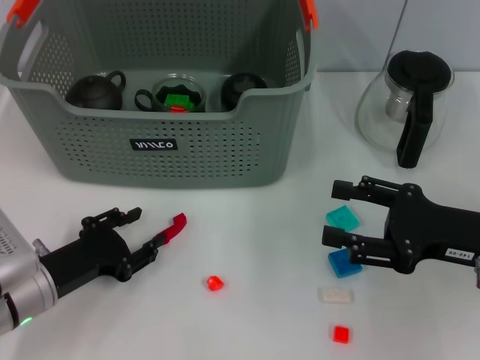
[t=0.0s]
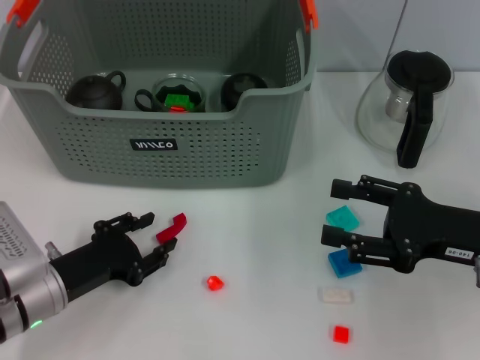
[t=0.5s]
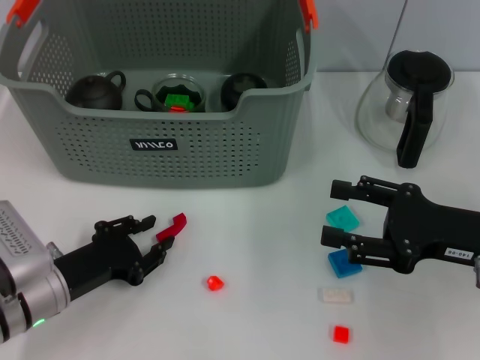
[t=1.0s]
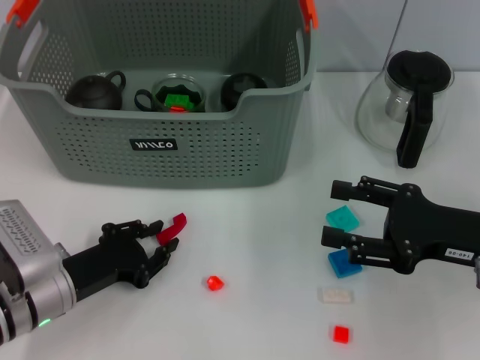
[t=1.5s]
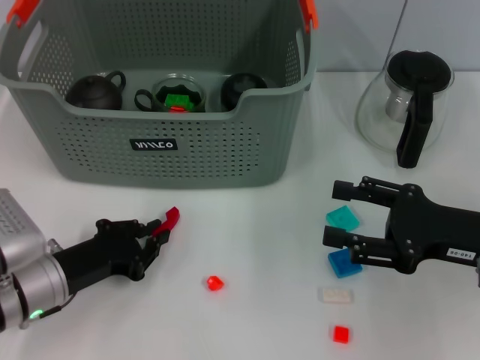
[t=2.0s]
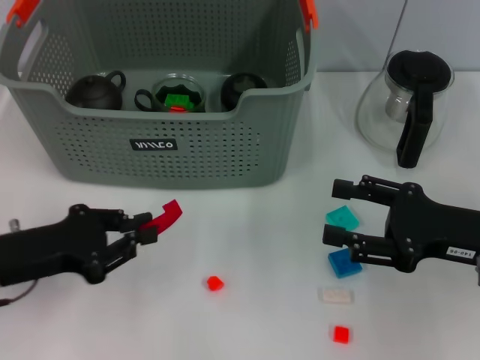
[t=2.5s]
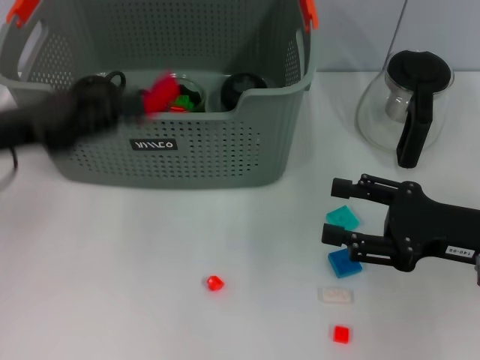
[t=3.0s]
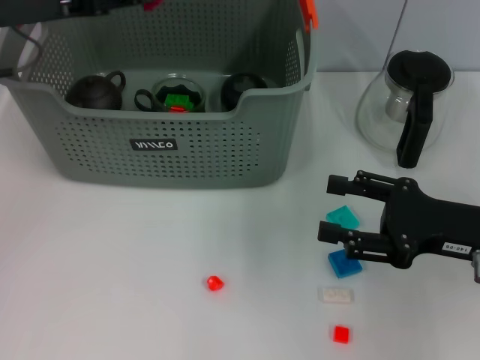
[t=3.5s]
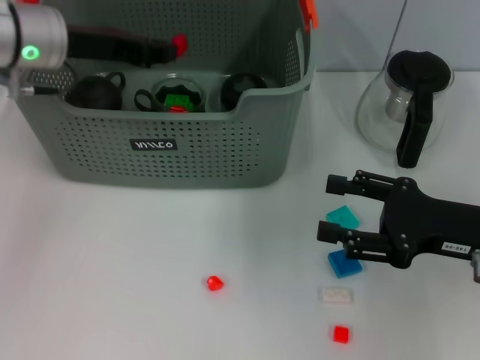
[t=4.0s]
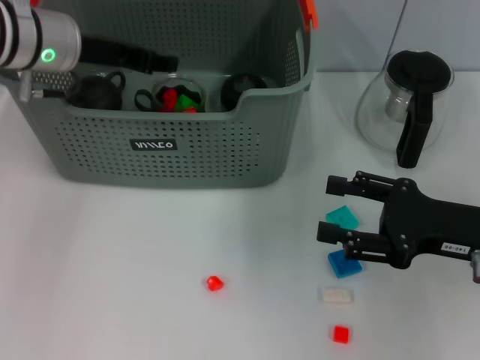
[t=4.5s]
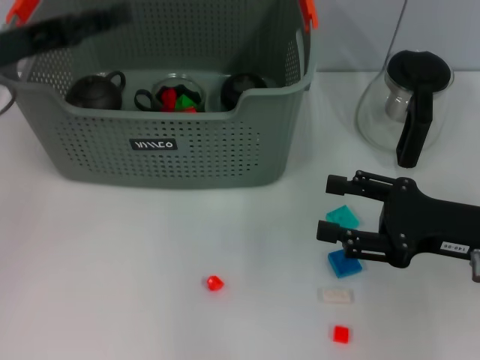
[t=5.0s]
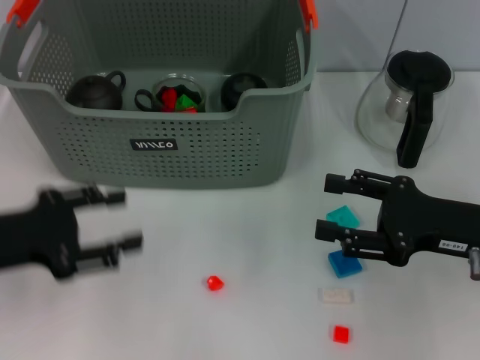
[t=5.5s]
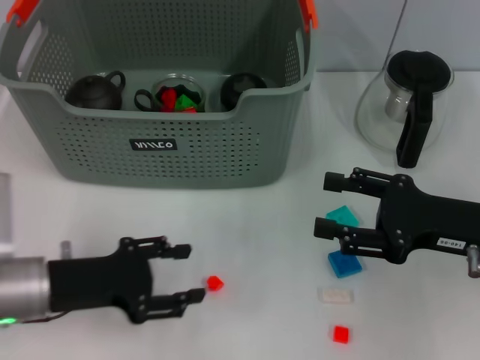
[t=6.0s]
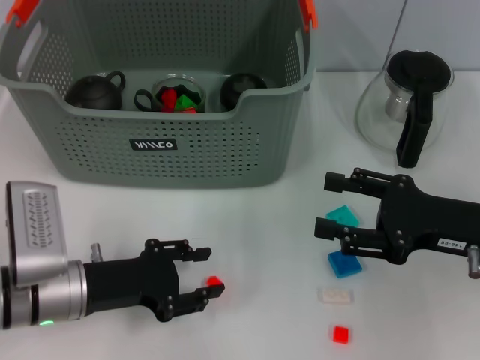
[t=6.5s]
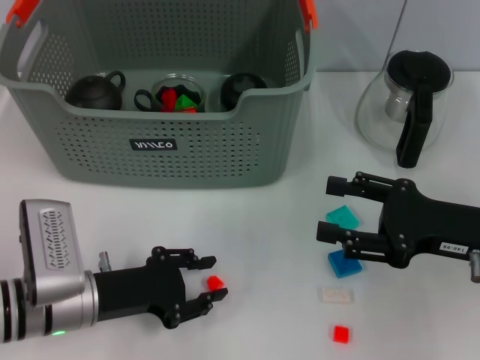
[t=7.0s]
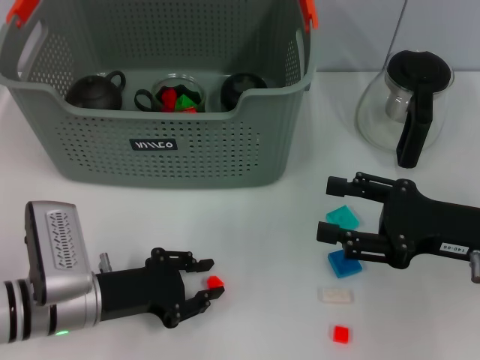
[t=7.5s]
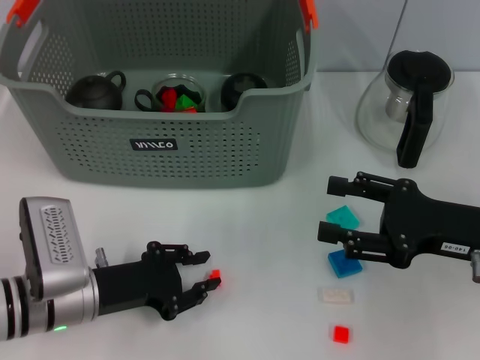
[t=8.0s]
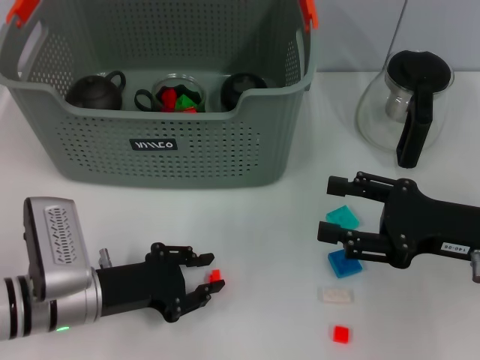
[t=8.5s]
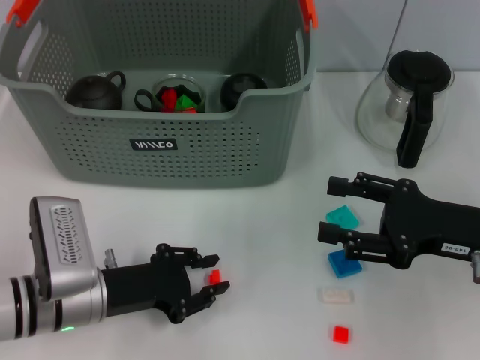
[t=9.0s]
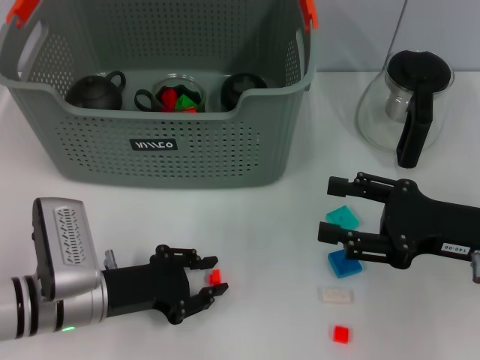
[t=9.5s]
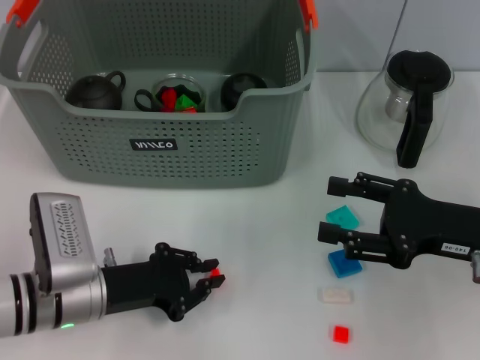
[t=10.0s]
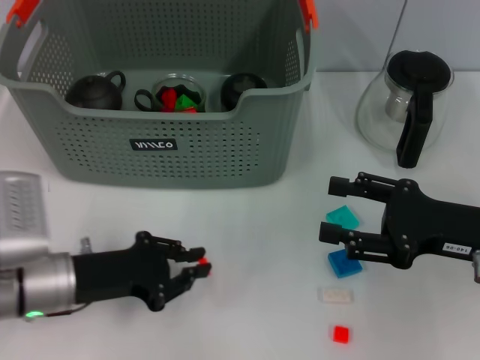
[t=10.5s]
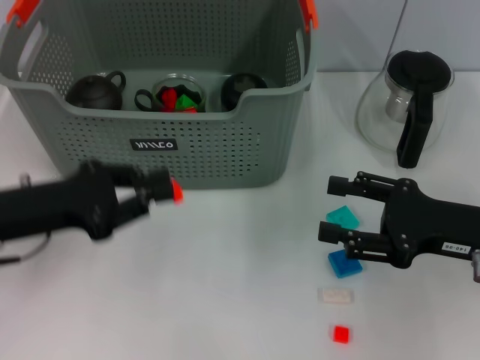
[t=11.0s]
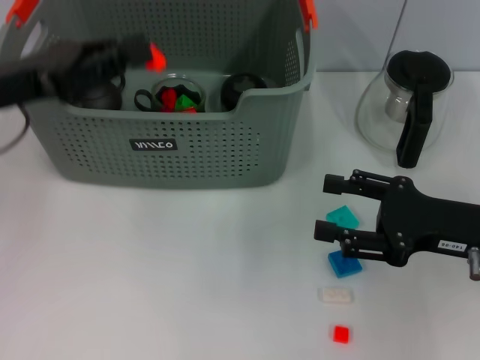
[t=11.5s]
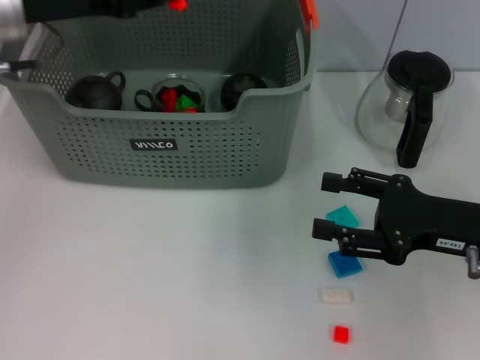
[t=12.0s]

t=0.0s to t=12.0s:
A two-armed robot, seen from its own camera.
Task of the whole recording: pick up the teacup on the table and place it into the storage bin, pick up the block on the table and place it into the storage bin.
Step, t=2.0s to t=4.5s: Place the red block in the storage box with left gripper.
Step, t=5.0s to t=9.5s: Grasp the orange block with left gripper.
t=0.0s to t=2.0s: The left gripper closes.
t=2.0s to t=4.0s: The left gripper goes roughly 25 cm upward and forward.
t=4.0s to t=6.0s: The left gripper shifts some 20 cm backward and downward, and opens its fingers.
t=6.0s to t=8.0s: The left gripper shifts by about 5 cm, and closes.
t=8.0s to t=10.0s: Neither gripper changes place.
t=10.0s to t=12.0s: The left gripper moves upward and forward, roughly 25 cm.

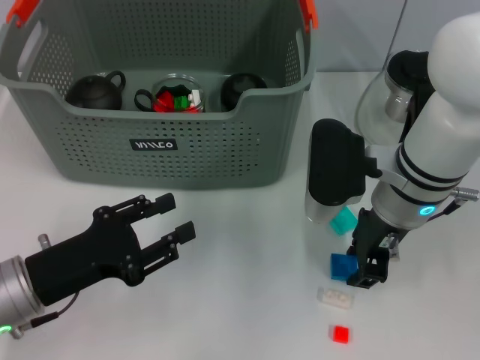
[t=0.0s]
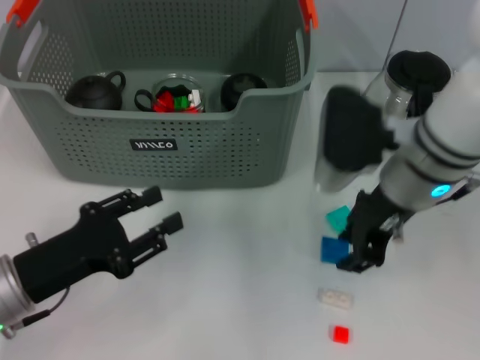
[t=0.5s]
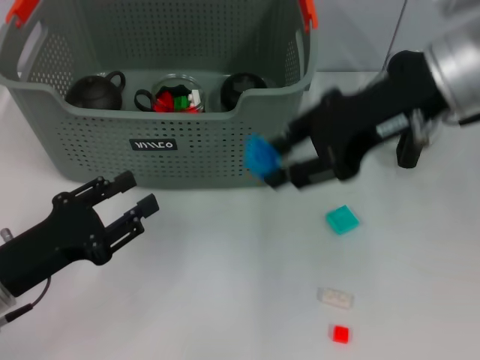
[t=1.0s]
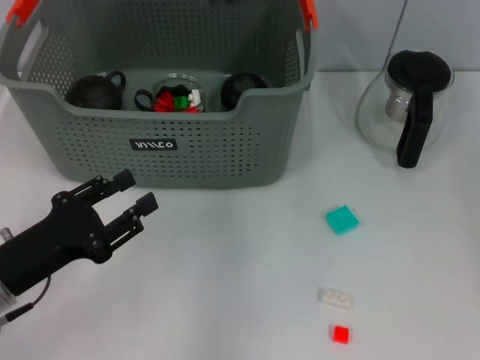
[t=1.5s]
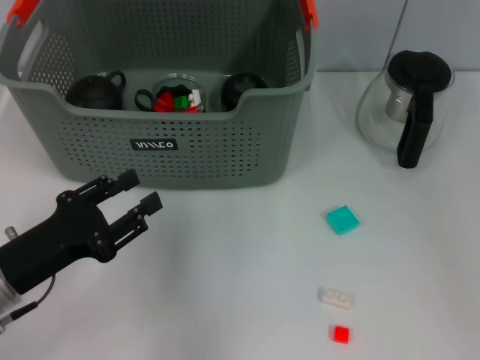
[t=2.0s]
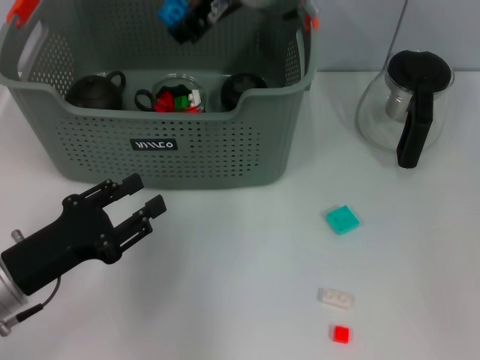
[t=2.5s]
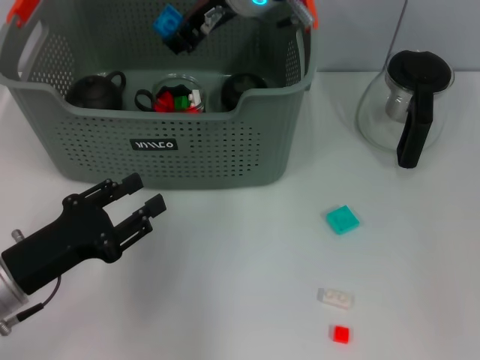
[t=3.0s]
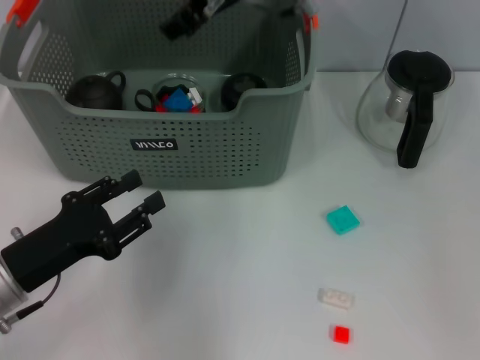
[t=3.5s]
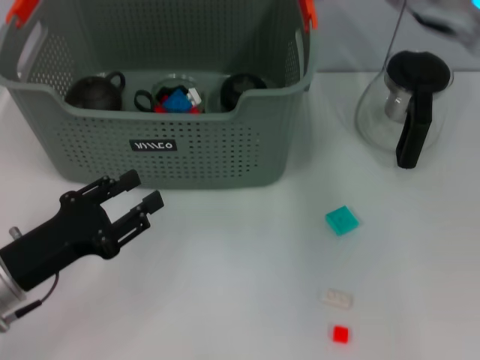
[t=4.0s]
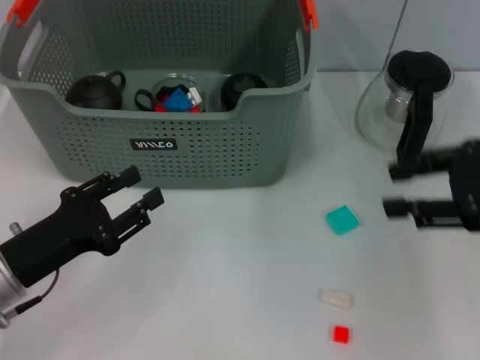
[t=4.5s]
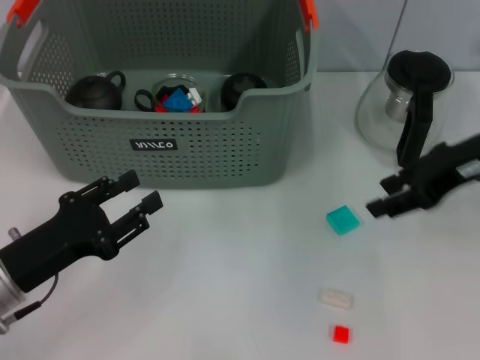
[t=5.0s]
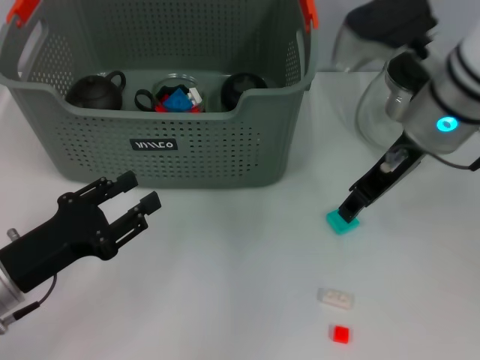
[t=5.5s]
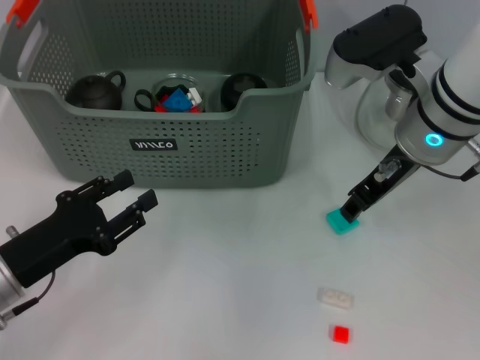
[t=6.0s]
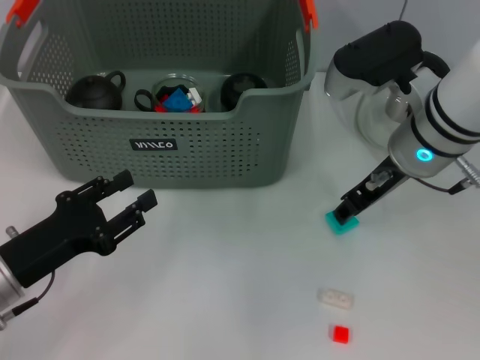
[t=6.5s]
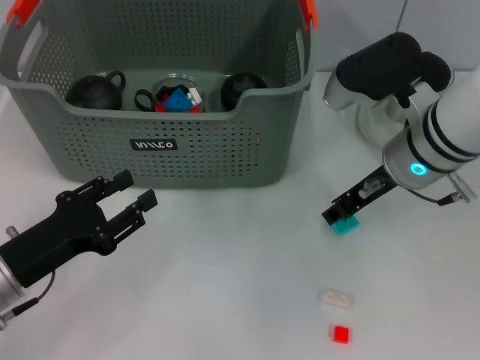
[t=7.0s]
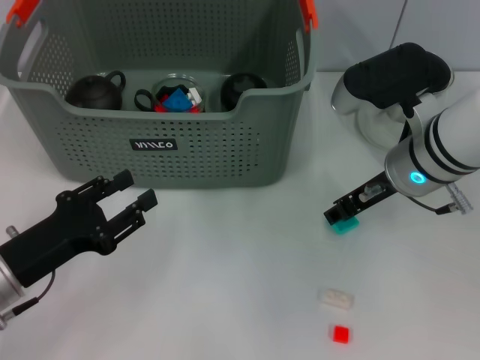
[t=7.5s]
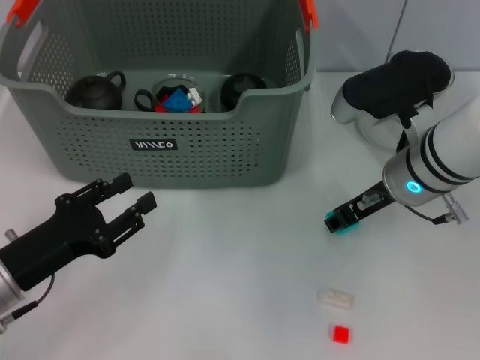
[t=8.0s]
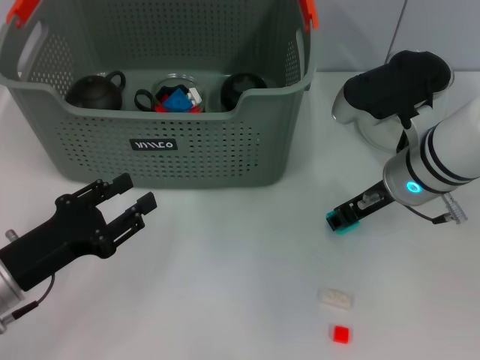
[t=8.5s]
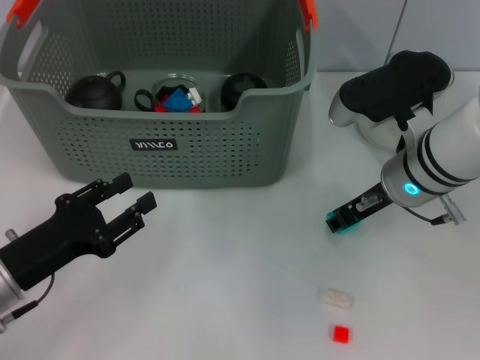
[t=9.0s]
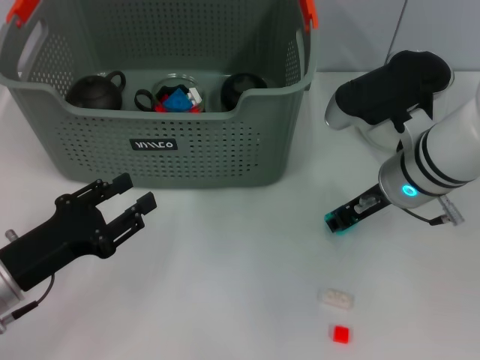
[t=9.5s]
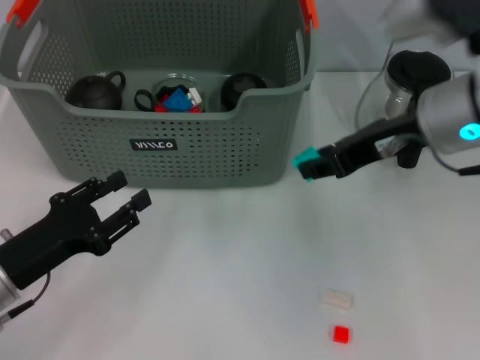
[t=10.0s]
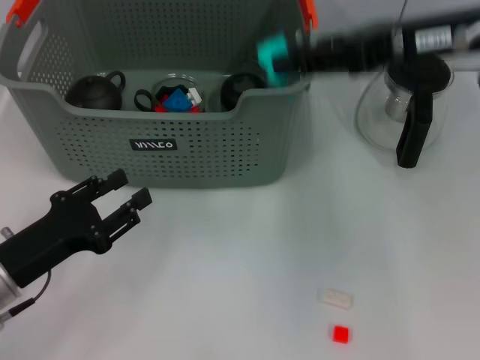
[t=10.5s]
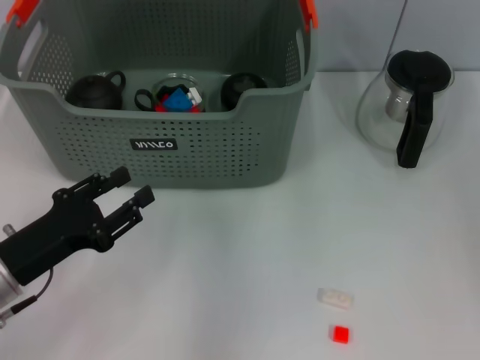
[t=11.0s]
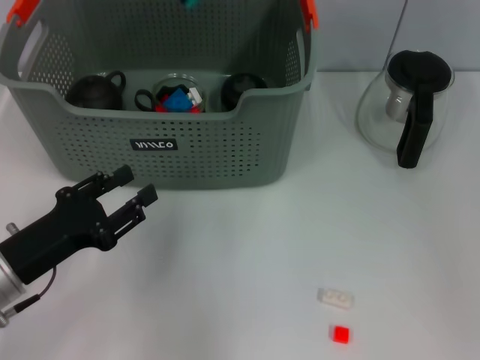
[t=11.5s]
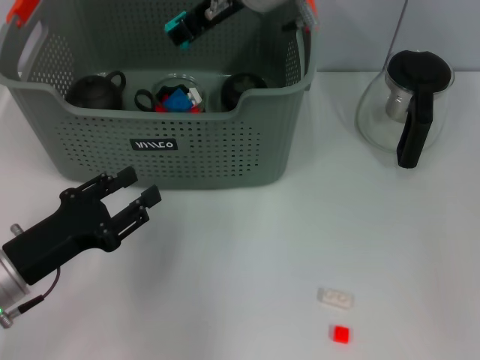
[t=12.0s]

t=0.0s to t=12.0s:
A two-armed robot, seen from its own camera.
Task of the whole recording: pick up the teacup on the table and place it into the storage bin, pick up the block on the table and place it into the storage bin.
Step, t=0.5s to t=3.5s: Place the dark blue block in the storage box with right gripper.
Step, t=4.0s to t=9.0s: Grasp the light blue block with right gripper.
t=0.0s to t=2.0s: The right gripper travels upward, forward and to the left by some 20 cm.
t=2.0s to t=4.0s: The right gripper moves to the right and backward, some 15 cm.
t=4.0s to t=6.0s: The right gripper goes about 10 cm downward, and reaches some 10 cm to the right, then returns.
t=6.0s to t=8.0s: The right gripper is displaced downward by about 5 cm.
t=8.0s to t=10.0s: The right gripper goes approximately 10 cm upward.
t=10.0s to t=12.0s: The right gripper shifts approximately 20 cm to the left and forward.

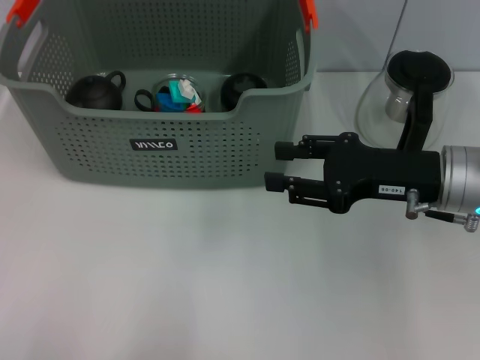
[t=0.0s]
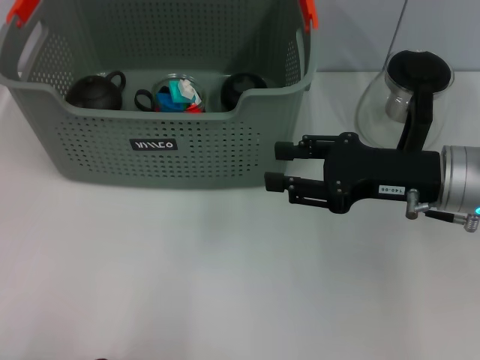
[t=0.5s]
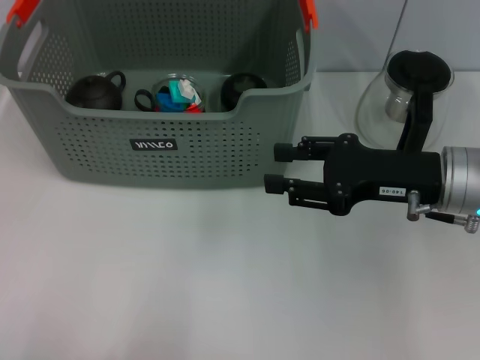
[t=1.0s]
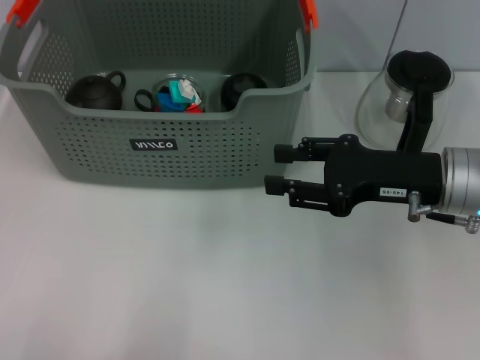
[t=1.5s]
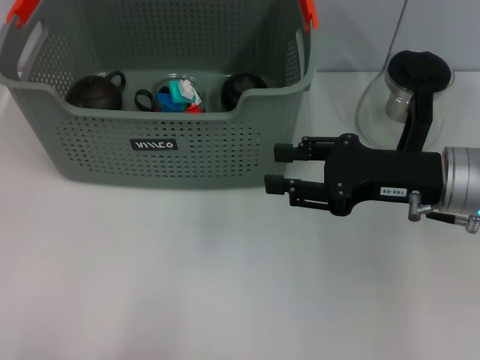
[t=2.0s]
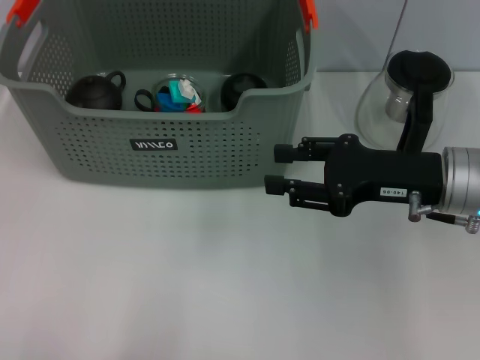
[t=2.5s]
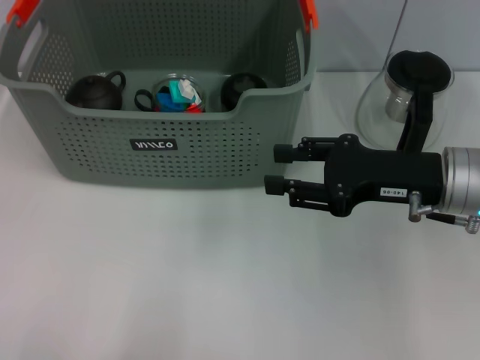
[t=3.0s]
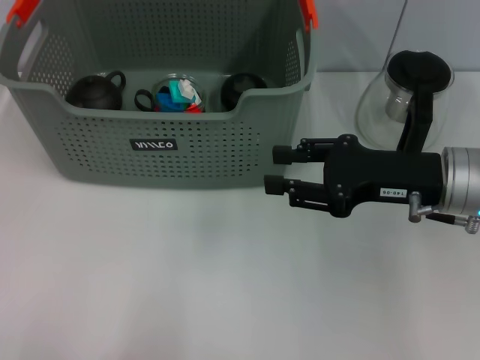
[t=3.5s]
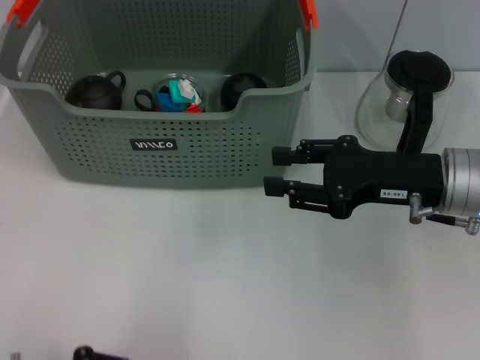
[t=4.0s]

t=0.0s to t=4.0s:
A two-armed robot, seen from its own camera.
Task of the whole recording: pick up the teacup on the table and place it into the storage bin, pick up the block on the table and place it into the storage bin.
t=0.0s to t=4.0s: The grippers make only small movements.
